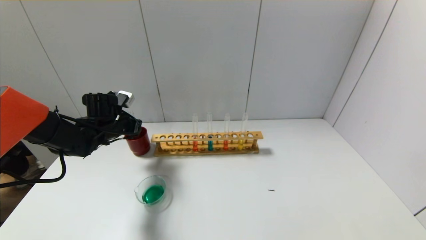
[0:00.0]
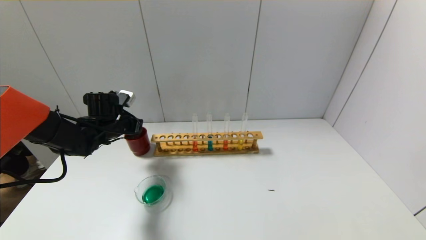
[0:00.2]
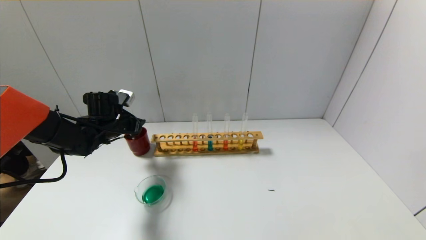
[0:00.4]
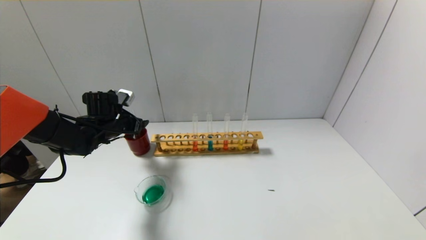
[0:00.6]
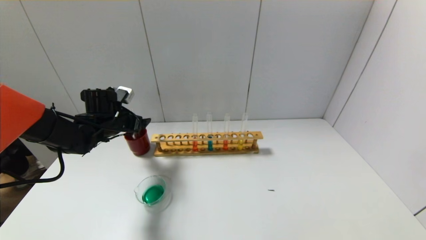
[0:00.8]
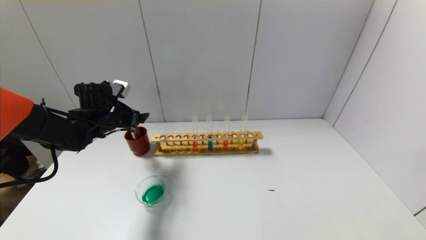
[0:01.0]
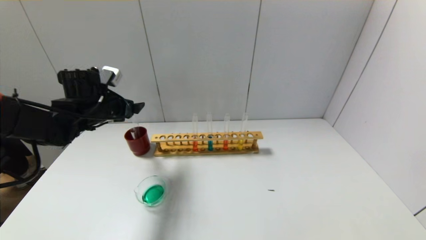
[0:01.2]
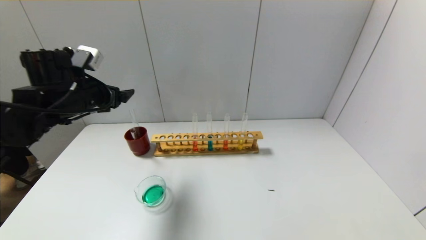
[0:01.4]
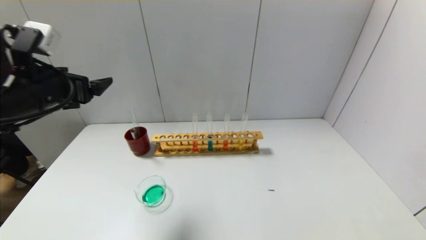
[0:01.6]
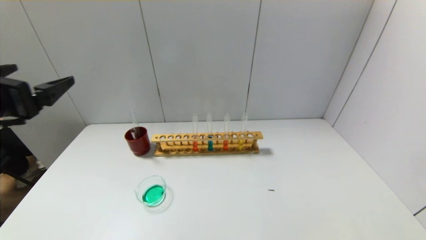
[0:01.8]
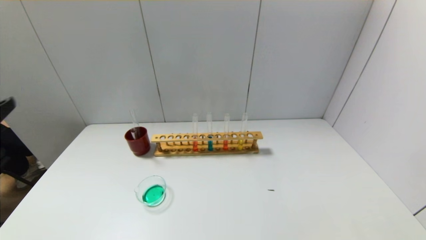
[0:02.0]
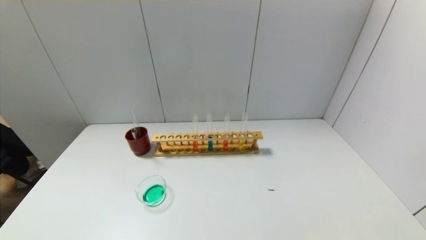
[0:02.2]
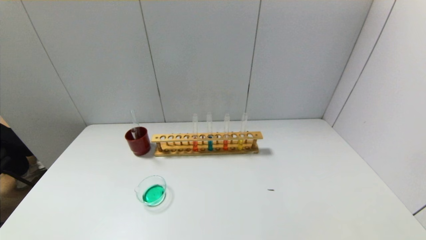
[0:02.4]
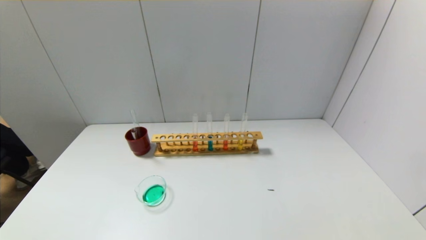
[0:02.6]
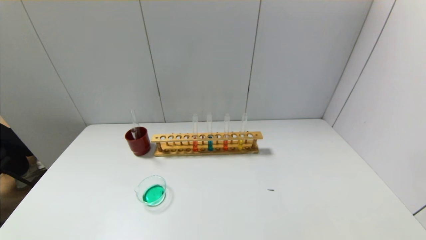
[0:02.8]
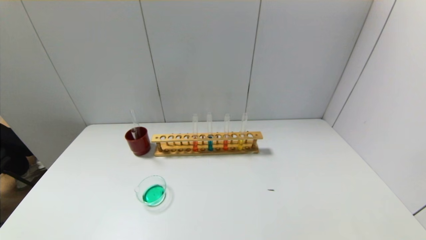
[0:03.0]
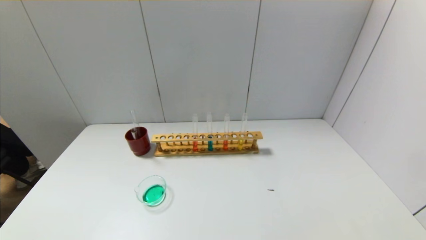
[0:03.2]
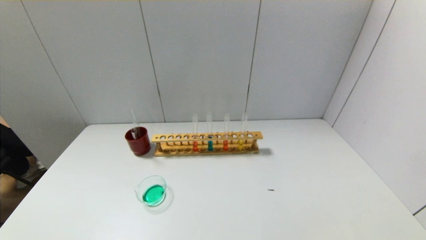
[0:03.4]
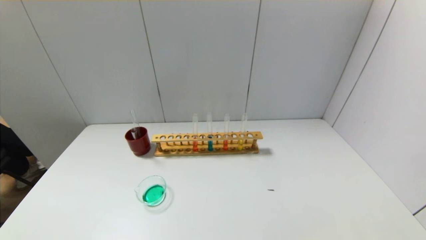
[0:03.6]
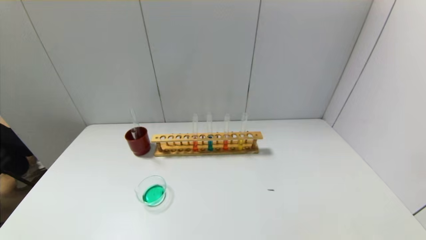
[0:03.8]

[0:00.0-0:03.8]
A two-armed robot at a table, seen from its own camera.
0:00.0 to 0:01.2: The left gripper shifts some 5 cm upward, and opens its fingers.
0:01.2 to 0:02.6: The left gripper goes about 40 cm backward.

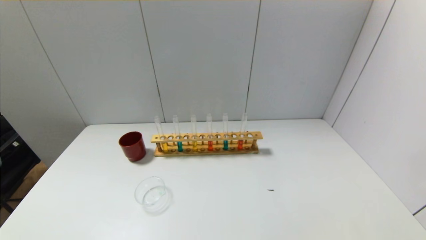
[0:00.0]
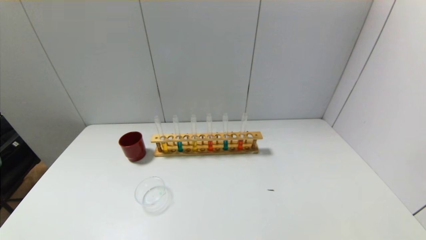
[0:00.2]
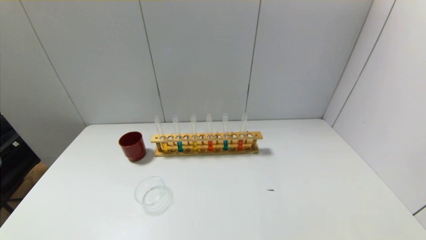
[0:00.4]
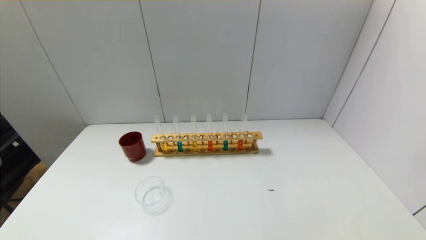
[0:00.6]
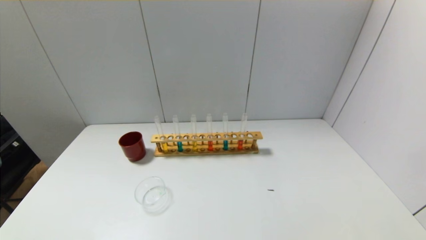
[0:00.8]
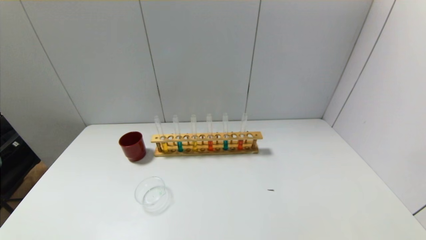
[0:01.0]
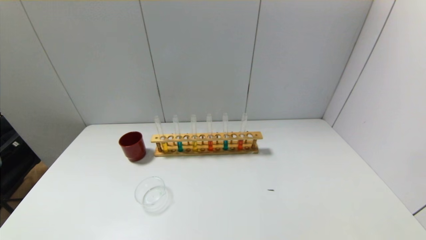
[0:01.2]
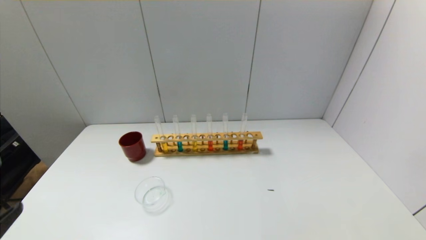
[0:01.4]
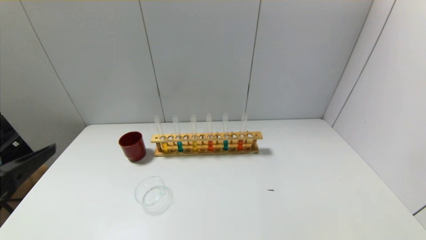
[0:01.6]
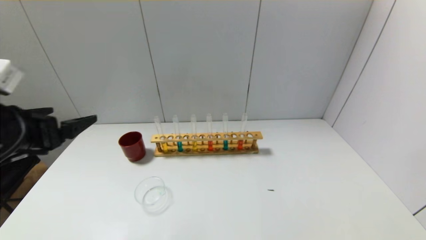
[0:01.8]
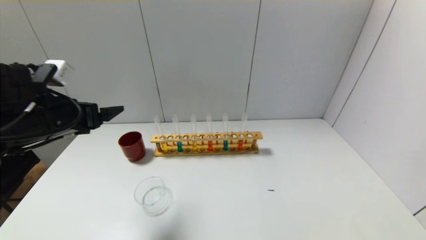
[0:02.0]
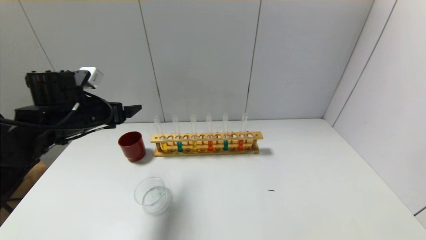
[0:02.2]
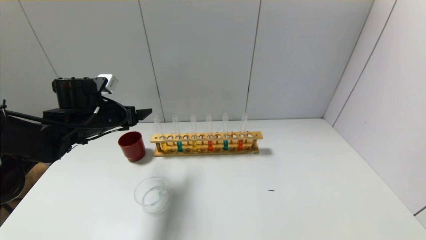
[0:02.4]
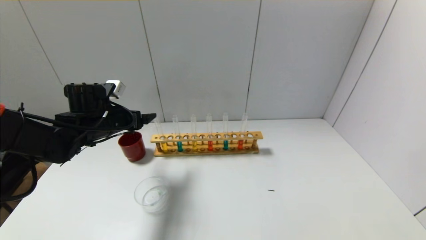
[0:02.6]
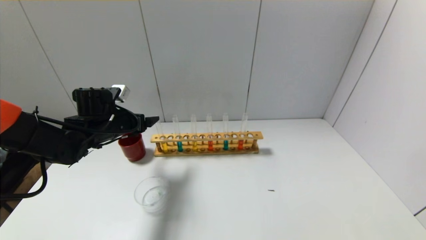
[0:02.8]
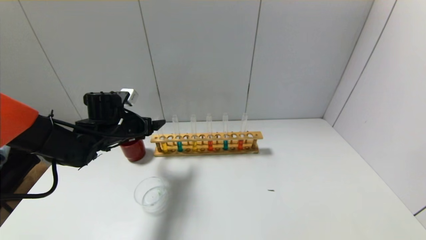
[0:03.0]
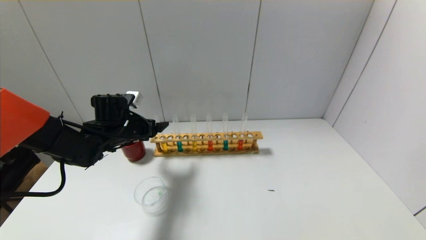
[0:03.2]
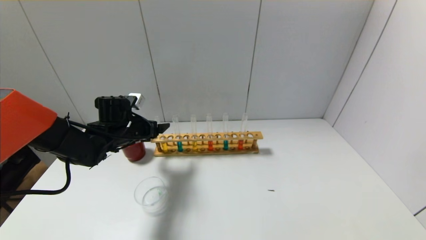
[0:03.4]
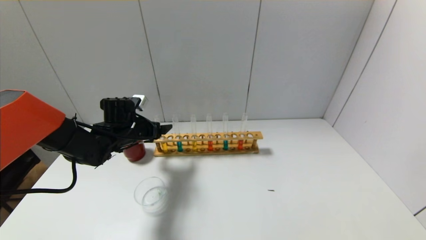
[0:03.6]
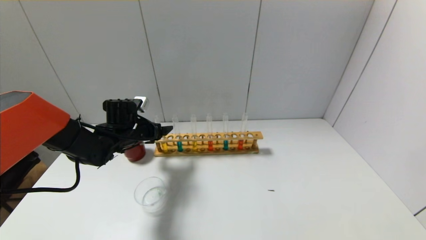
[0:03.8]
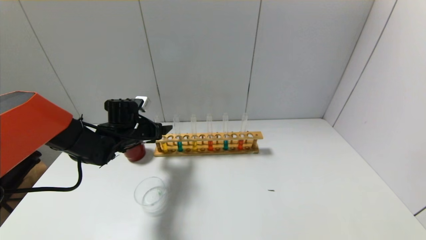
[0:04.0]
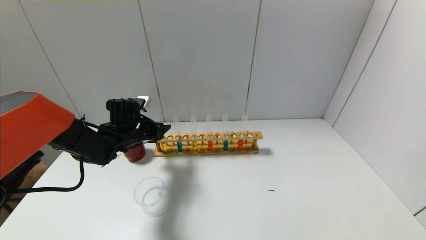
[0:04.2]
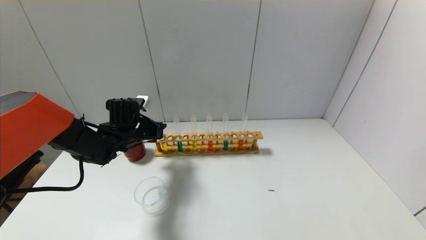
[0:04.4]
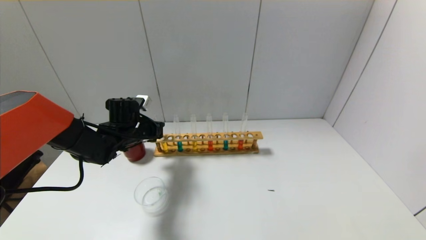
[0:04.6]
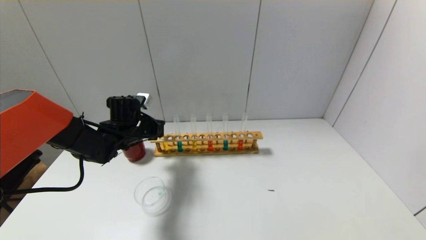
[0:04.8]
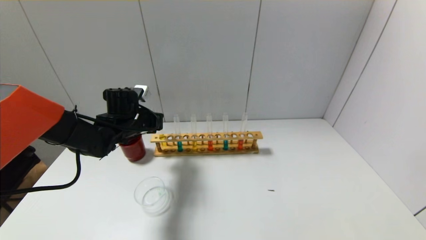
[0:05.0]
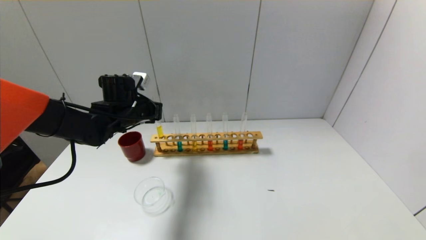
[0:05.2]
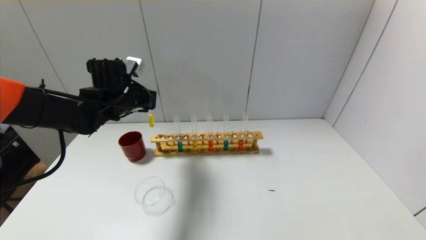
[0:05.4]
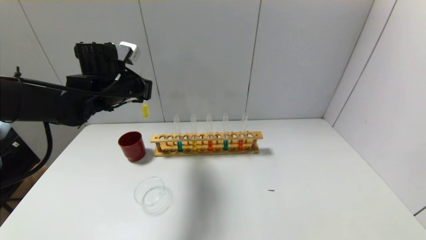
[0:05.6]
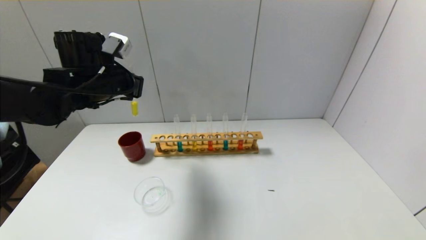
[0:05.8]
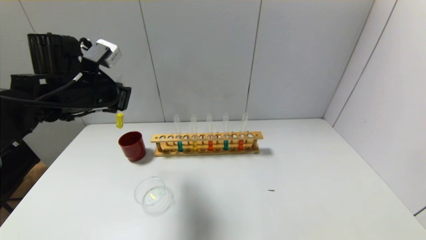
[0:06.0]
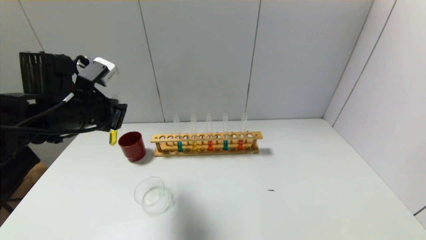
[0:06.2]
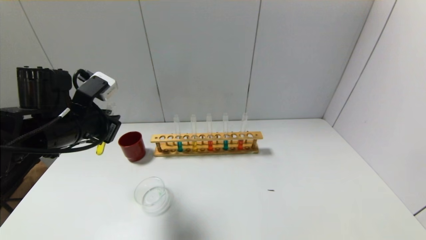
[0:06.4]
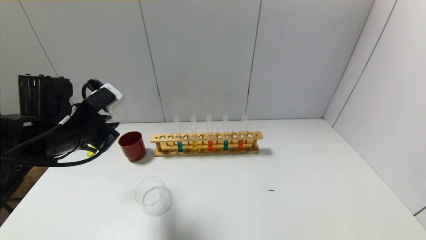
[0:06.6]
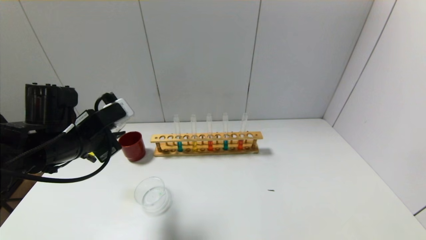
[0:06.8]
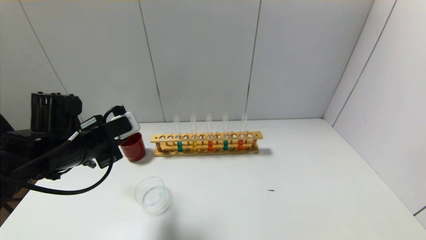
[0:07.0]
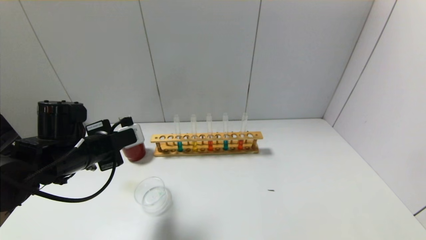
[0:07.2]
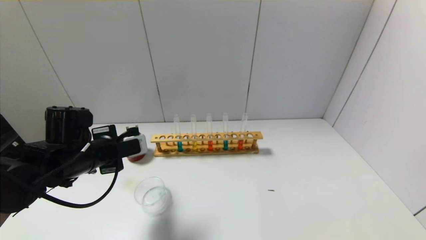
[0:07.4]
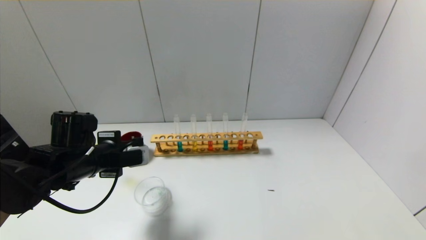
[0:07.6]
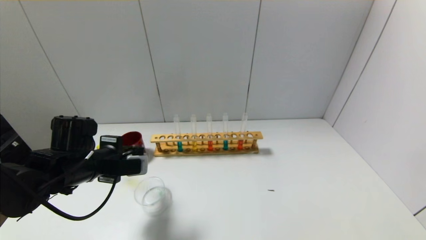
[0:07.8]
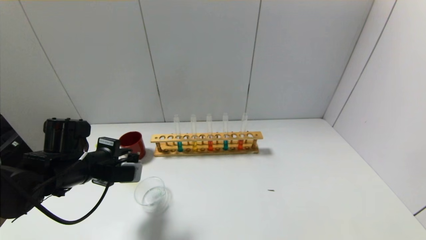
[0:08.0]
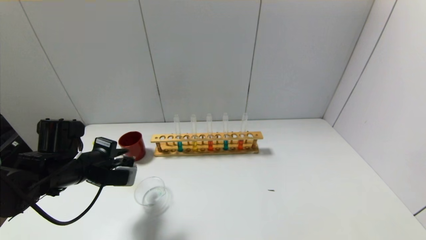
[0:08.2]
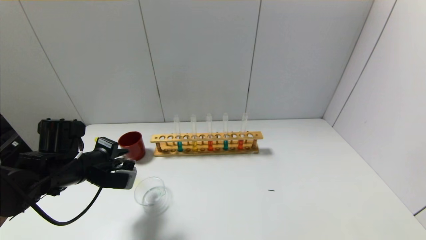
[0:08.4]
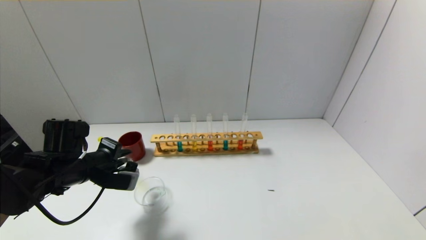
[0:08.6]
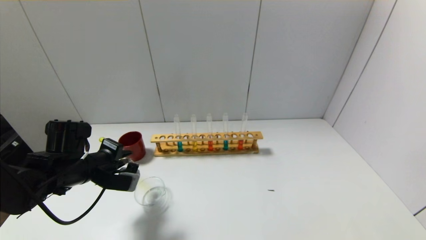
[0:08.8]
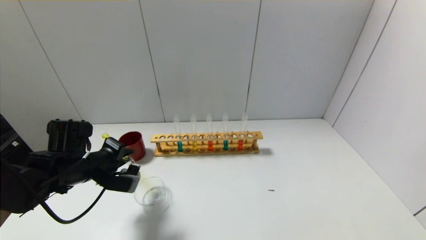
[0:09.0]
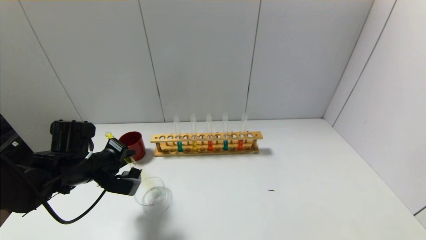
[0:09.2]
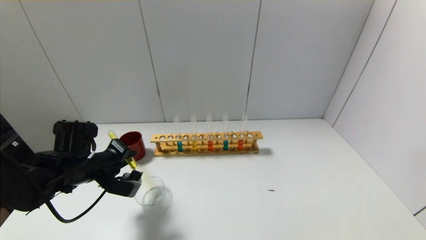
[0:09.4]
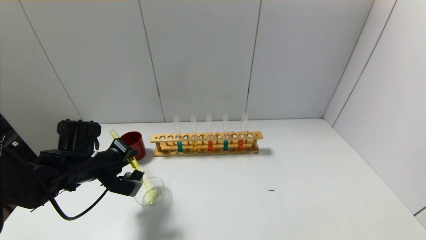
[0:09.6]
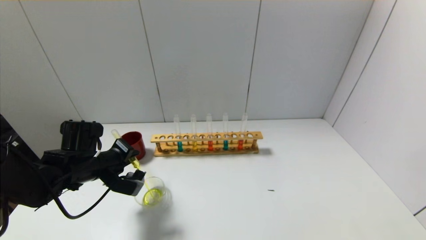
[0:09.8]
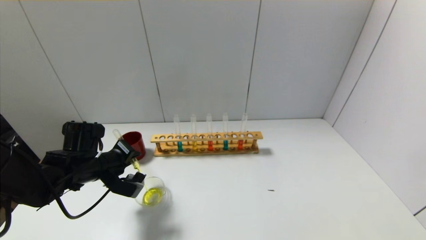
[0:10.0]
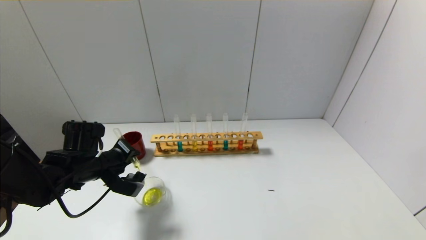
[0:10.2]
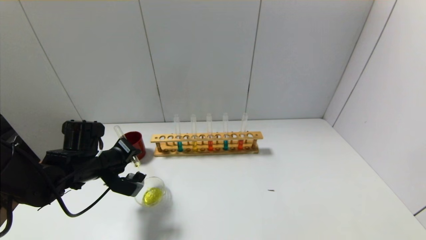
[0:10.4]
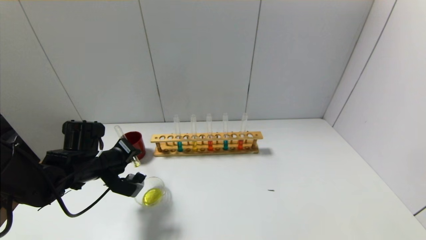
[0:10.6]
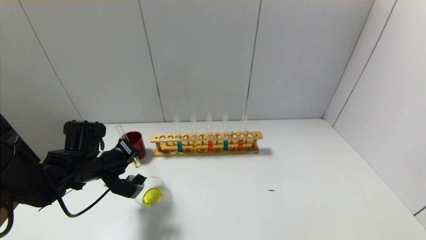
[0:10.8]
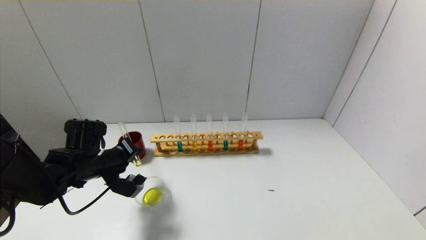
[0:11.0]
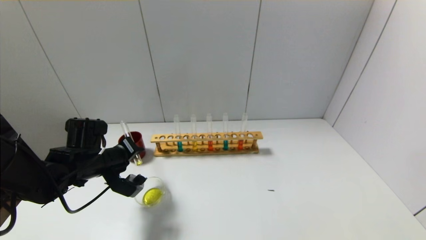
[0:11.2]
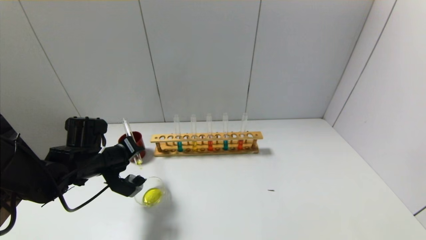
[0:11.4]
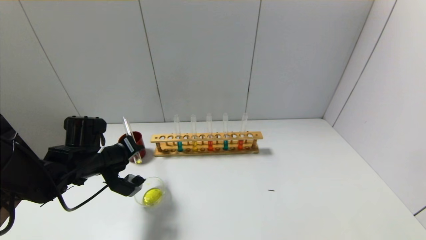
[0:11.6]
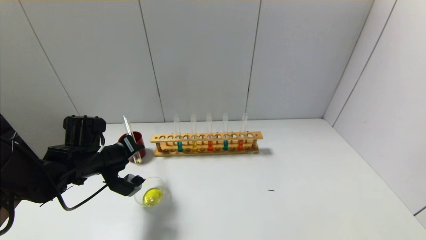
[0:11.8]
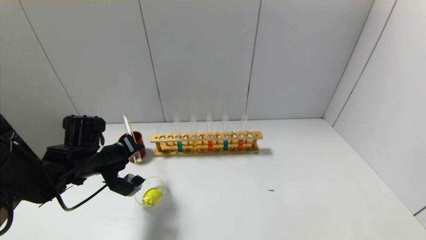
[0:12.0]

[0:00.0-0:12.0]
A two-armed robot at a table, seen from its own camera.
Step, 0:00.0 to 0:04.6: Grasp the yellow reagent with the left gripper.
0:01.6 to 0:03.0: The left gripper moves forward, roughly 25 cm.
0:03.0 to 0:04.4: The left gripper closes.
0:04.4 to 0:06.0: The left gripper is displaced upward and backward by some 20 cm.
0:06.0 to 0:07.6: The left gripper travels downward by about 10 cm.
0:09.0 to 0:10.4: The grippers move only a little.
0:10.4 to 0:12.0: There are only small adjustments of the grippers.

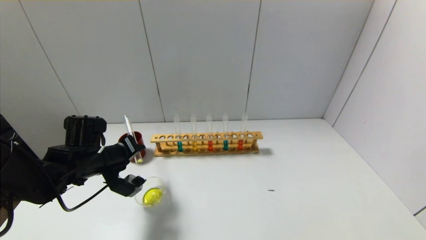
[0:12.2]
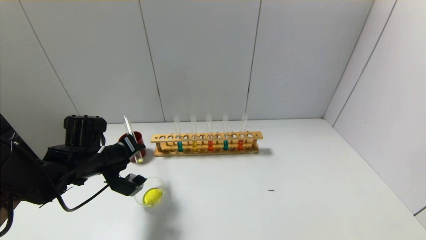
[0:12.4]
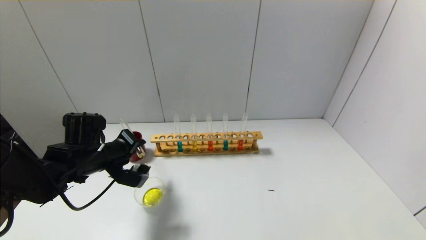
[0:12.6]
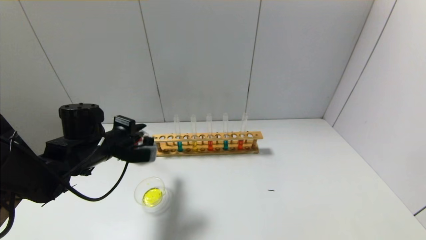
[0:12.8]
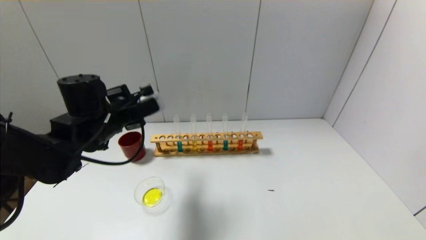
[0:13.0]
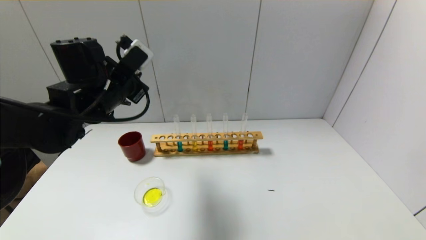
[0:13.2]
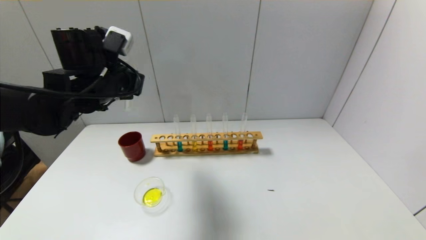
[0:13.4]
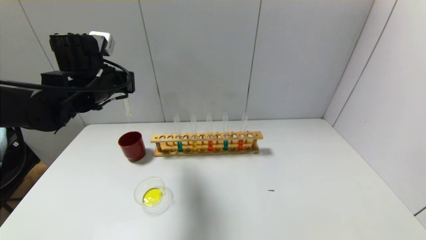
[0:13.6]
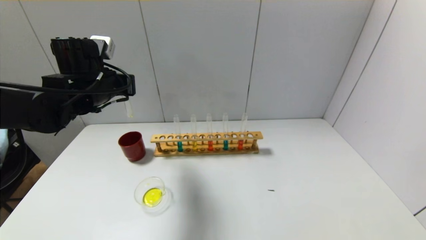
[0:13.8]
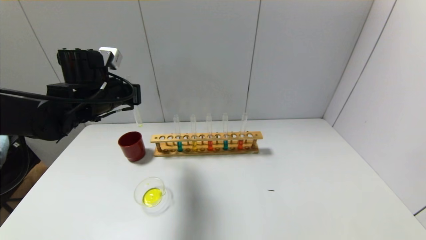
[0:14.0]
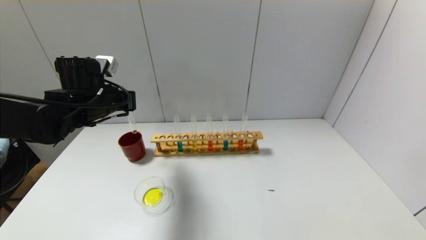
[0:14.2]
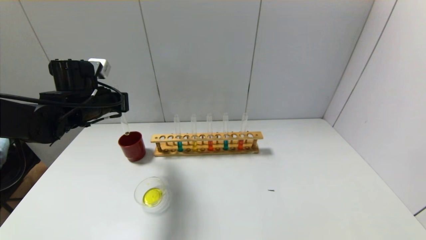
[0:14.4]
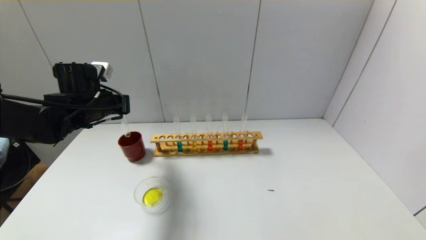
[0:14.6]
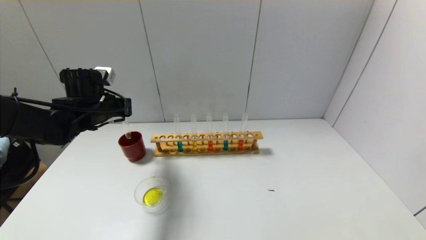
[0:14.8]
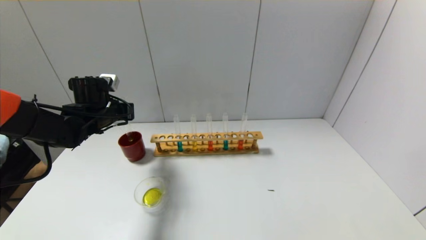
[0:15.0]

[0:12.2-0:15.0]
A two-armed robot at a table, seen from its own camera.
0:12.2 to 0:13.6: The left gripper heads upward, covering some 15 cm.
0:13.6 to 0:15.0: The left gripper heads downward, covering about 10 cm.
